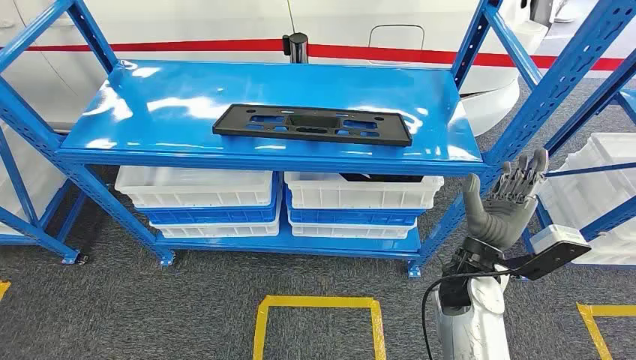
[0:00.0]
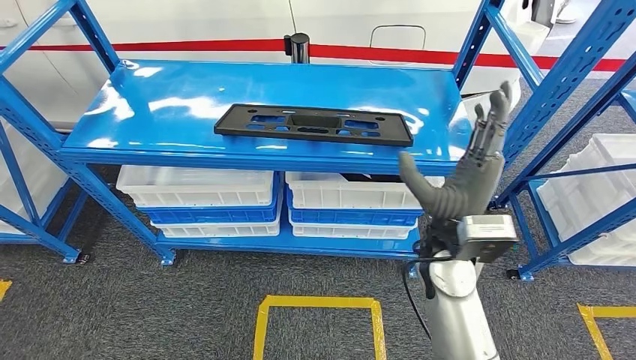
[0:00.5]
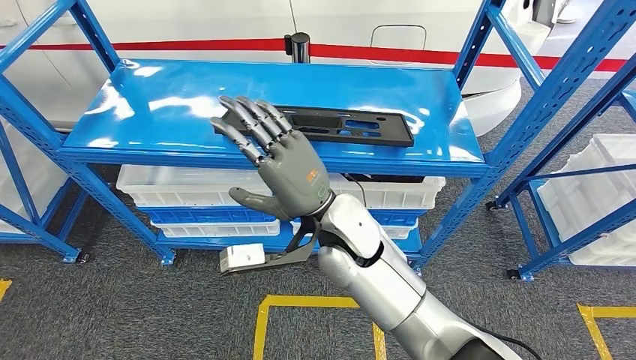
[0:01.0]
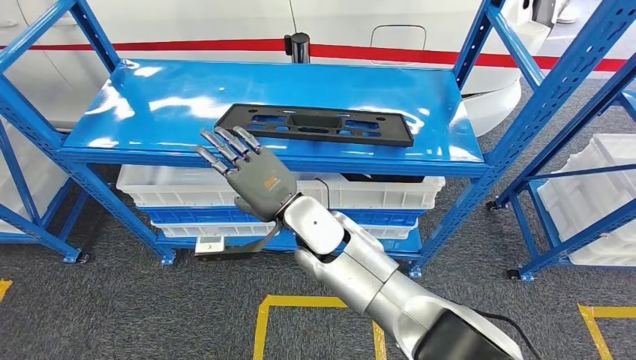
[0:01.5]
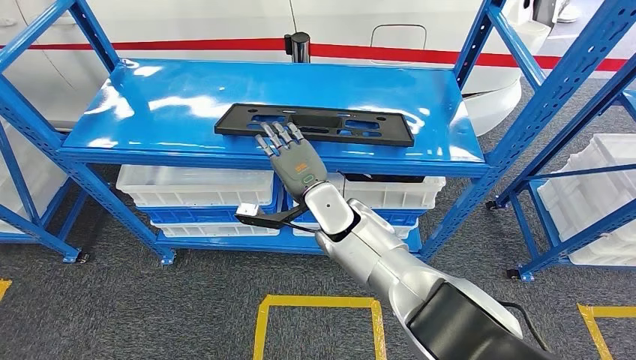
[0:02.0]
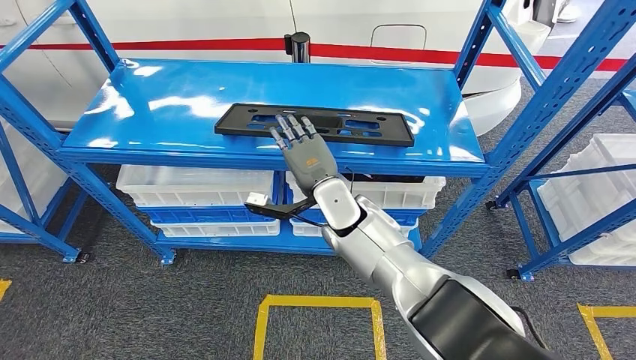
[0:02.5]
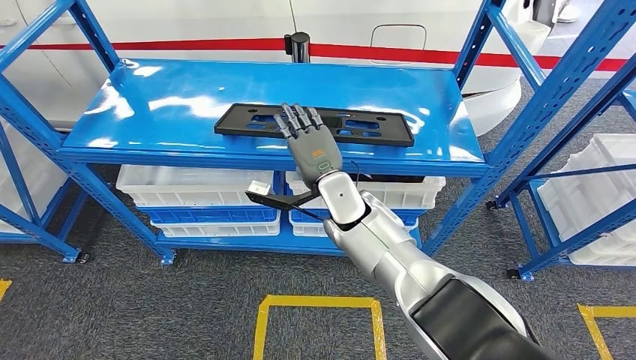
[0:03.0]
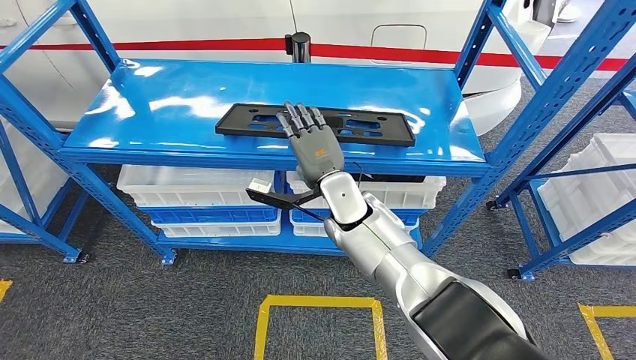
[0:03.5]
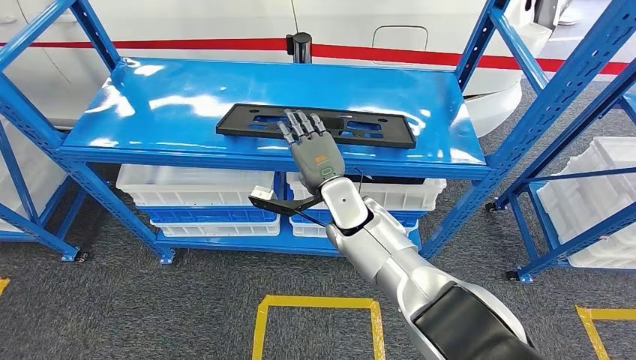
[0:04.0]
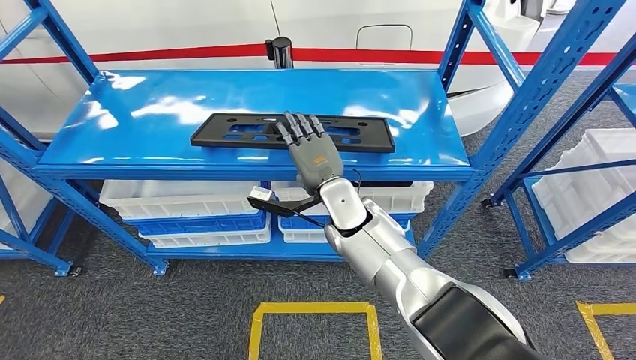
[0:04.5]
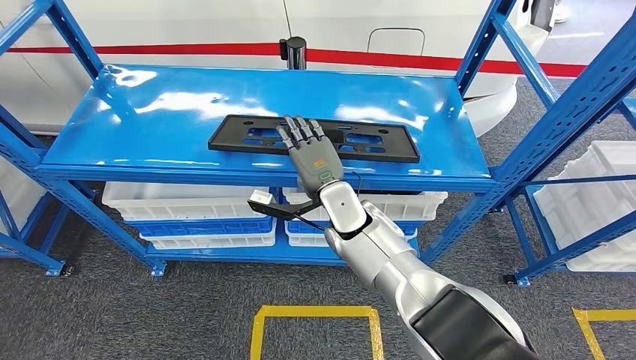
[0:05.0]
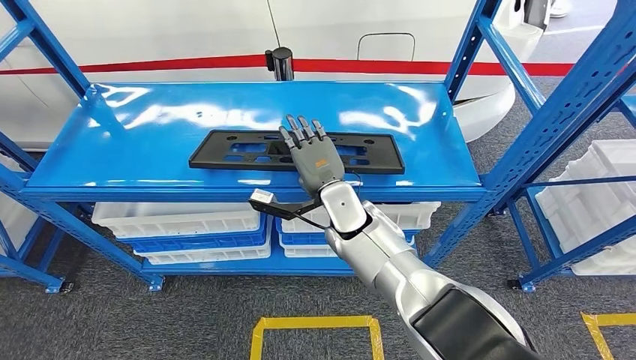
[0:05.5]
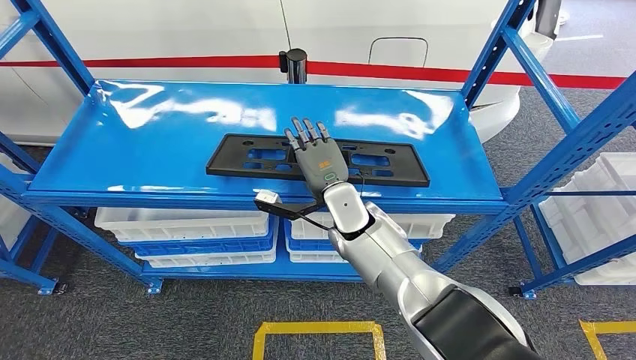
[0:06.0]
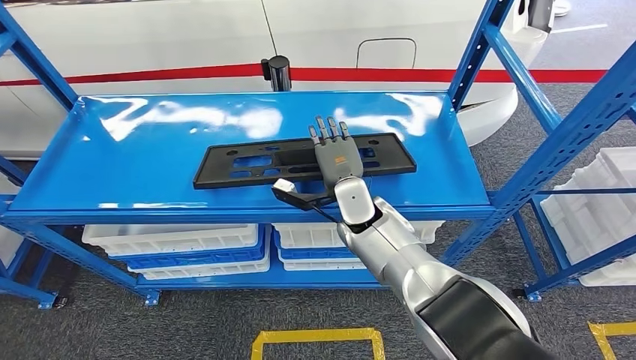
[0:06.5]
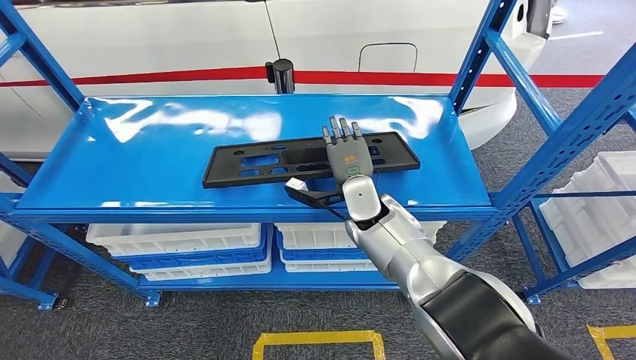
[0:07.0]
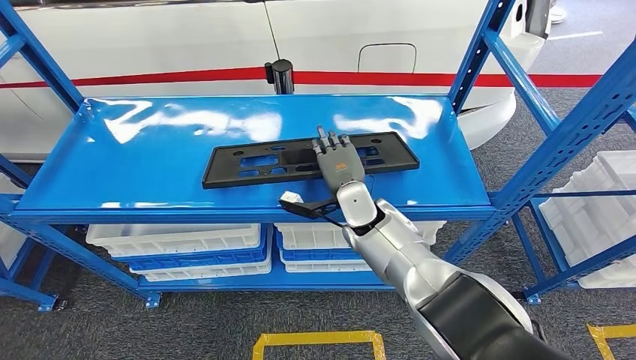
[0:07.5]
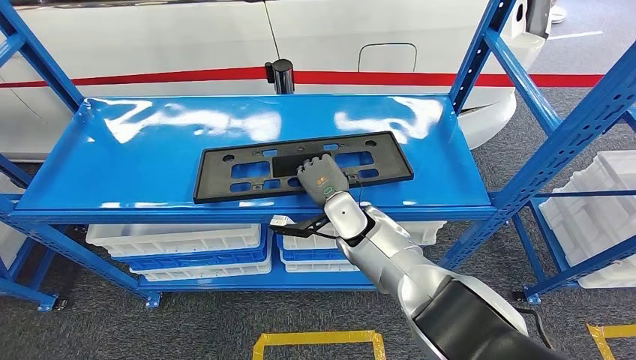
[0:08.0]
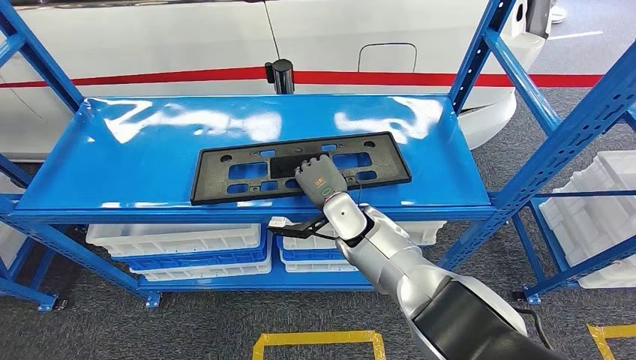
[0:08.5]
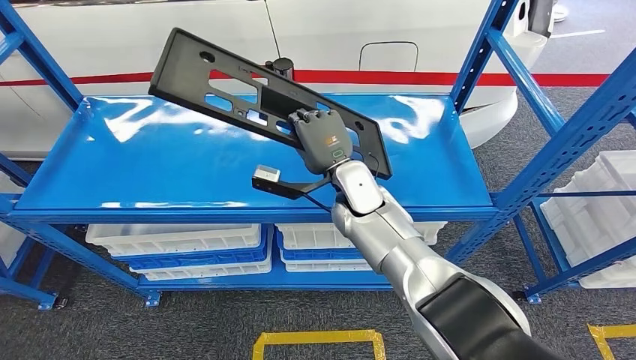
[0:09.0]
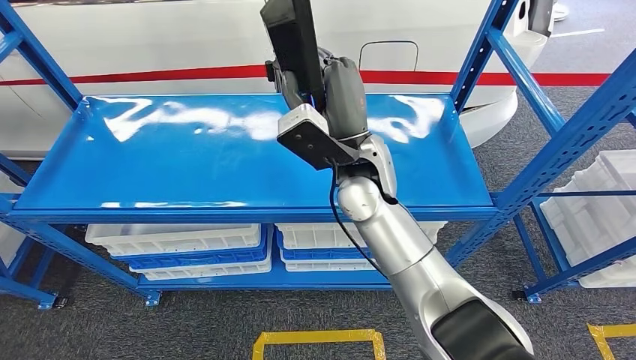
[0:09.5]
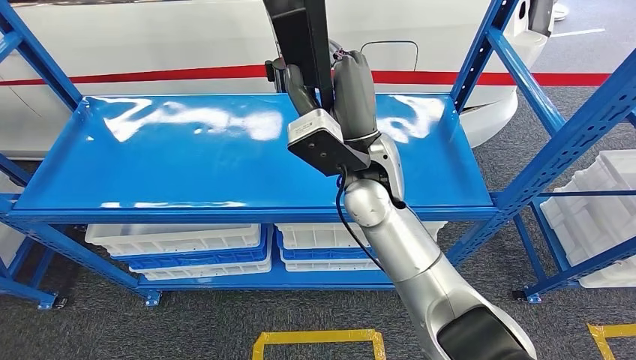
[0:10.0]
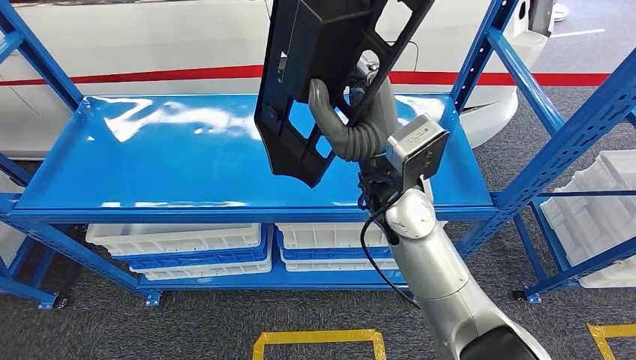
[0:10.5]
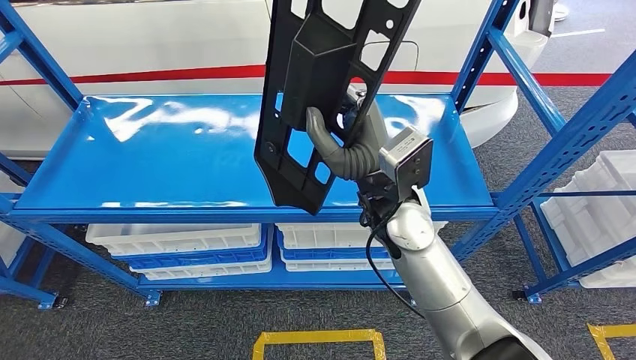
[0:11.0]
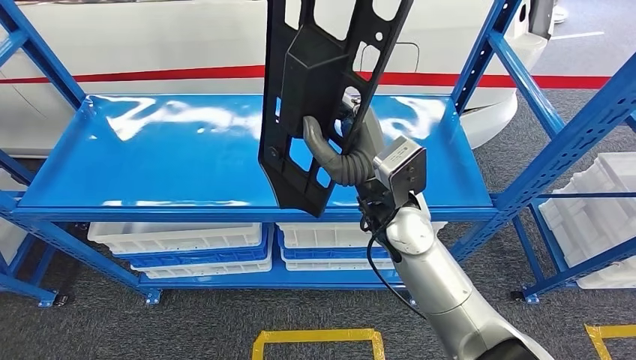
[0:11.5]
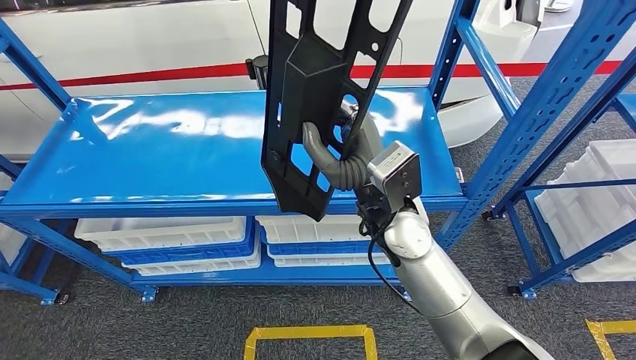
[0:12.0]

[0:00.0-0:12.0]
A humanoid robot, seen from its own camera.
Step, 0:00.0 to 0:11.0: Pick up the large material from the shelf.
0:02.0 to 0:04.0: There are only small adjustments of the hands.

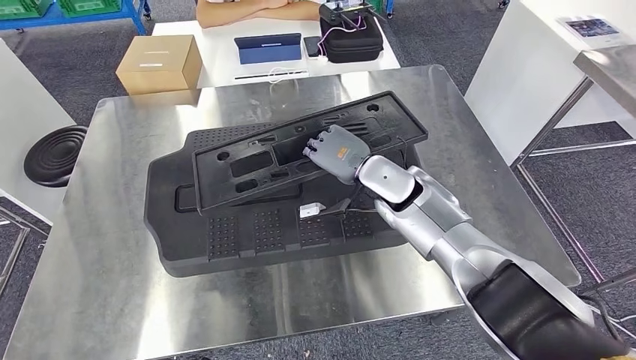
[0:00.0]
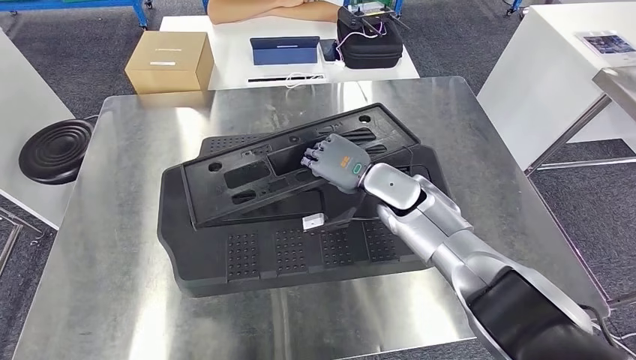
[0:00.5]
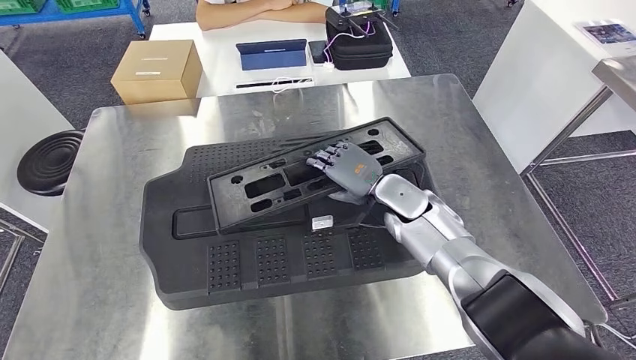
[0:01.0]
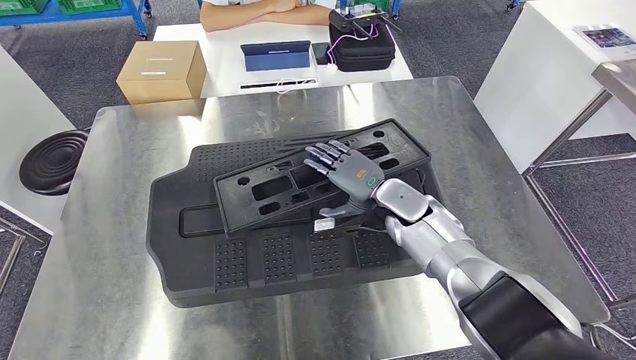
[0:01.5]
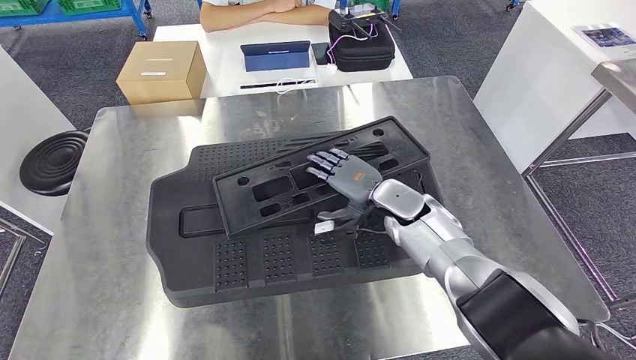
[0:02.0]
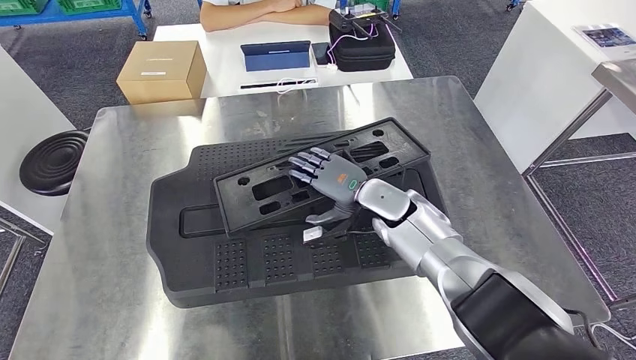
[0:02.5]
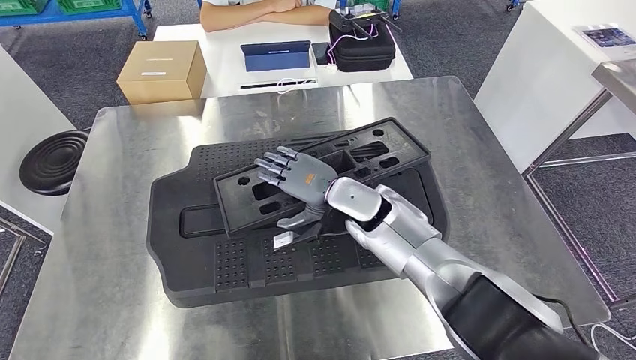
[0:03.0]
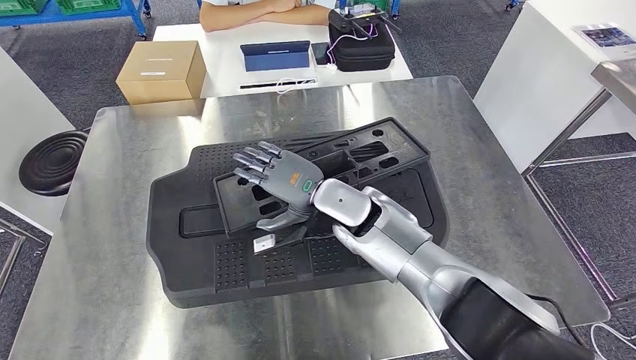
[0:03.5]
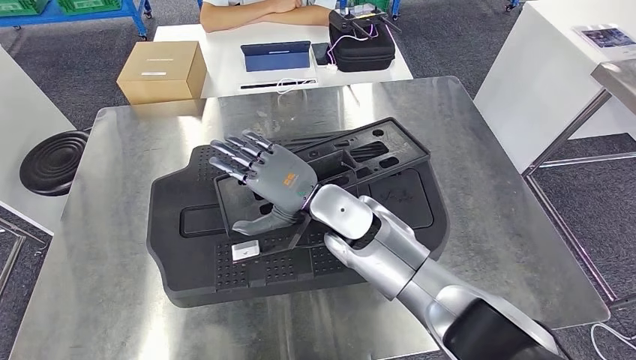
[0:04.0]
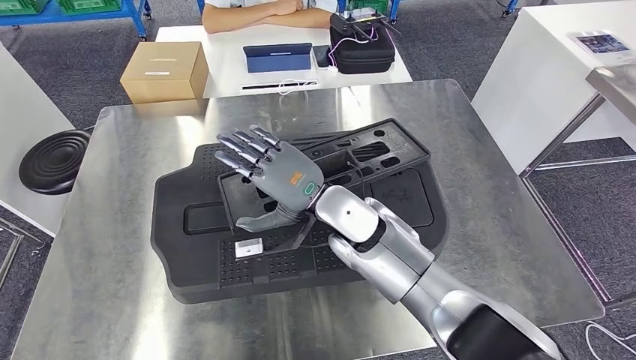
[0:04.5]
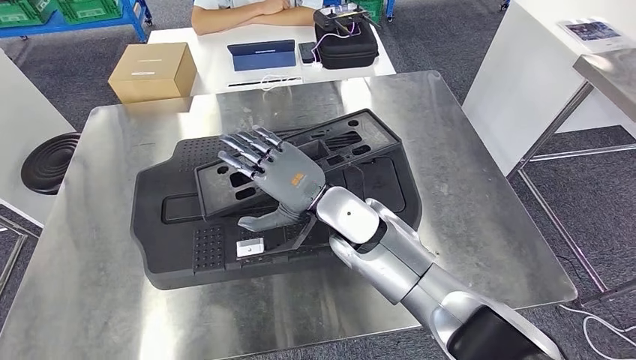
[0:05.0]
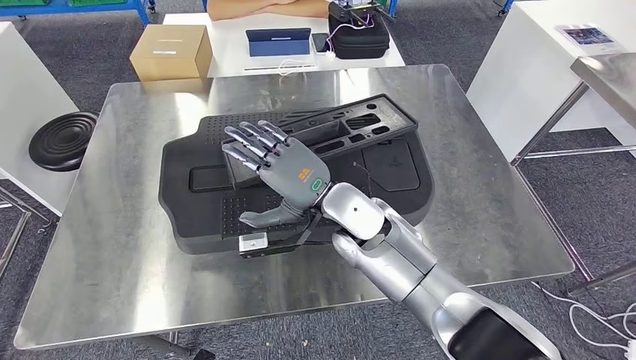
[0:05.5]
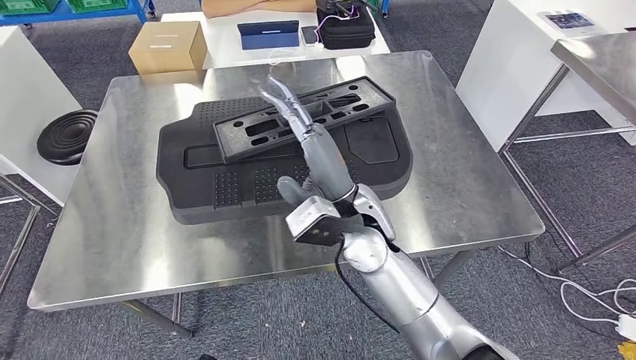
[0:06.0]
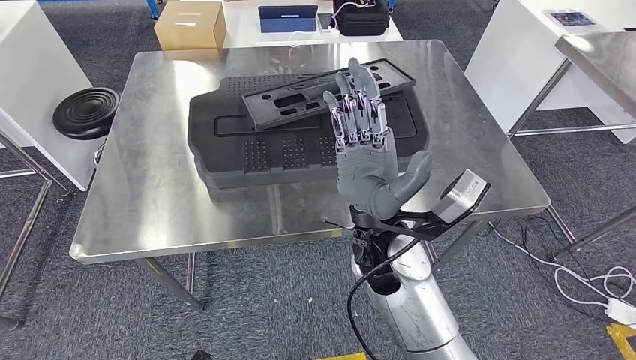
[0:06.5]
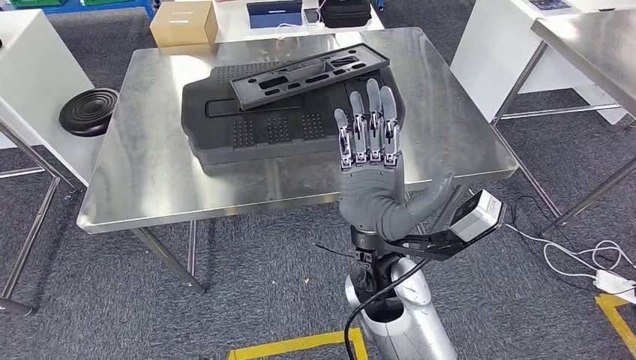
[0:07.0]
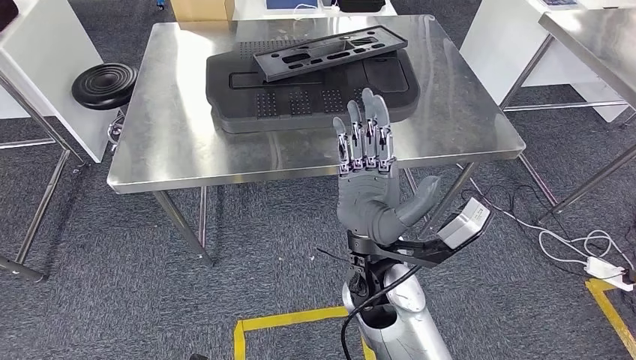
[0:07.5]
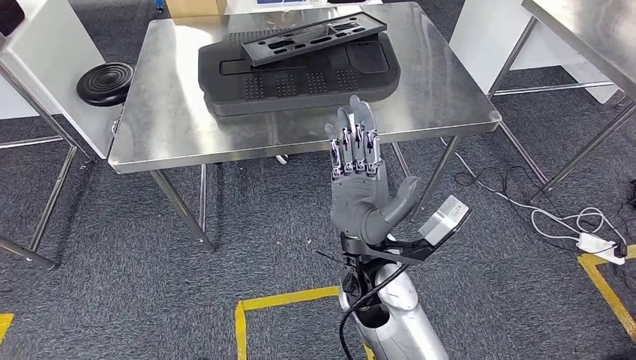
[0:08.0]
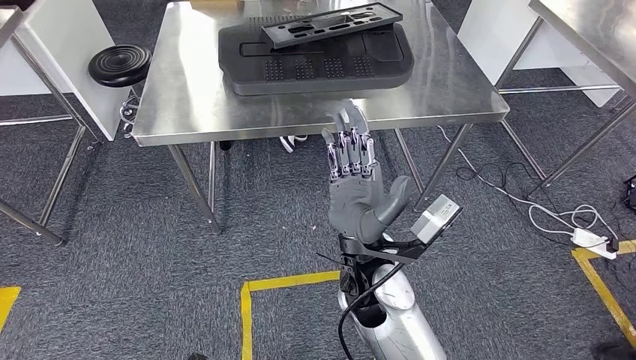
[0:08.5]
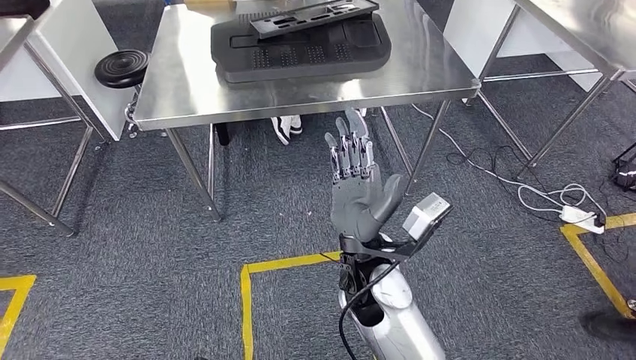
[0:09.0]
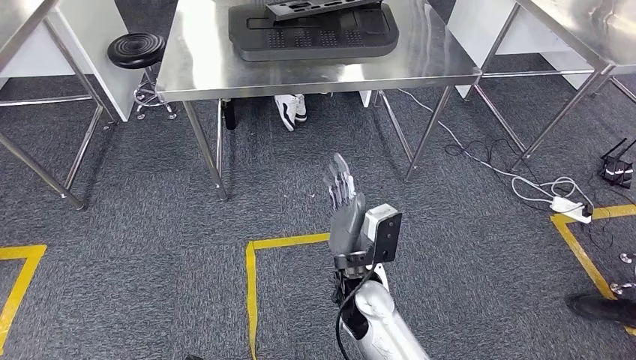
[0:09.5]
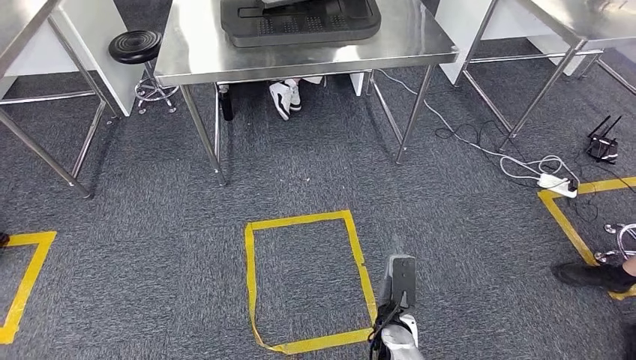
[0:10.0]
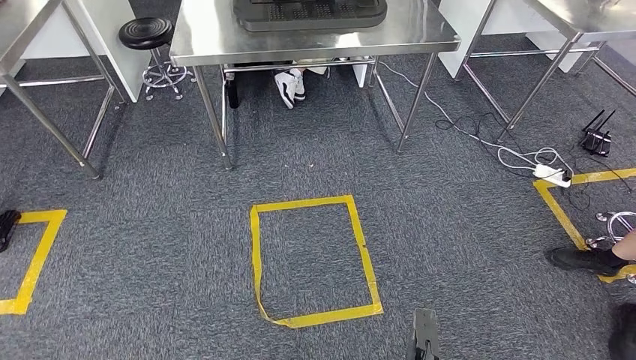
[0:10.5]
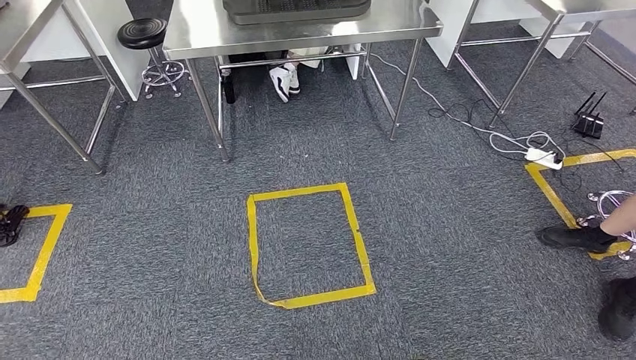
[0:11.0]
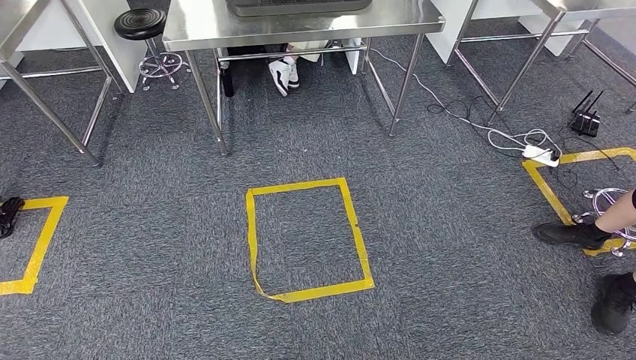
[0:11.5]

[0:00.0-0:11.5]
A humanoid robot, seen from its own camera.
0:02.0 to 0:04.0: The right hand shifts about 15 cm to the left, upward and backward.
